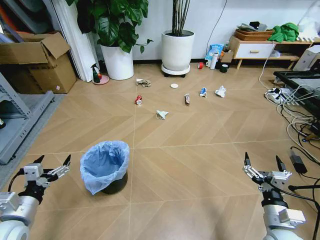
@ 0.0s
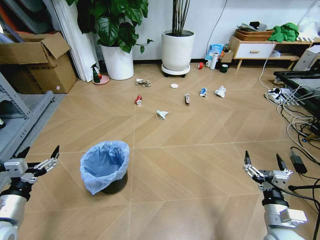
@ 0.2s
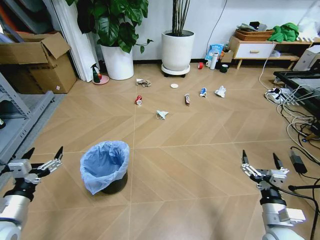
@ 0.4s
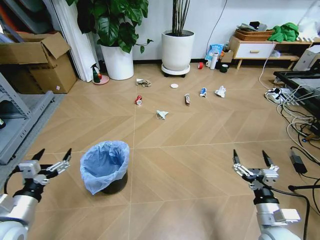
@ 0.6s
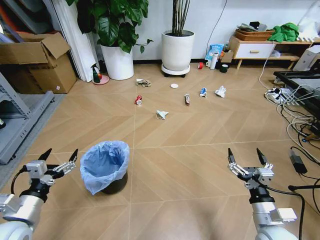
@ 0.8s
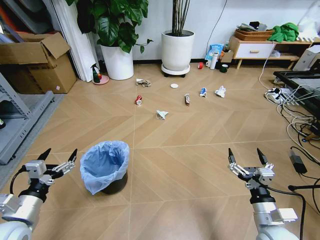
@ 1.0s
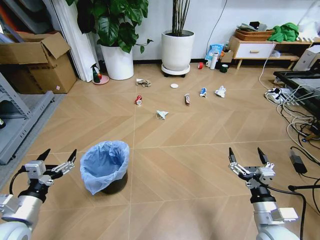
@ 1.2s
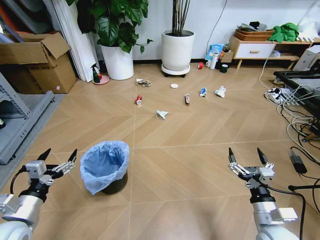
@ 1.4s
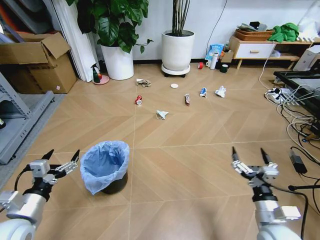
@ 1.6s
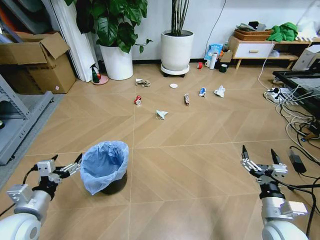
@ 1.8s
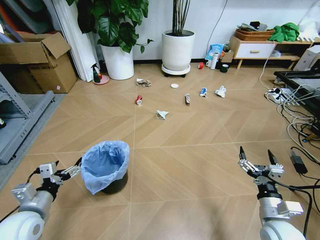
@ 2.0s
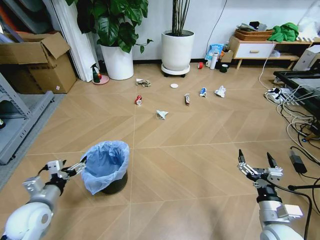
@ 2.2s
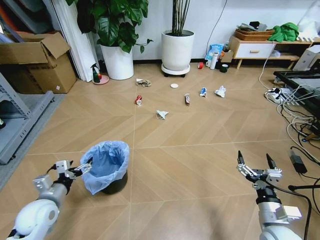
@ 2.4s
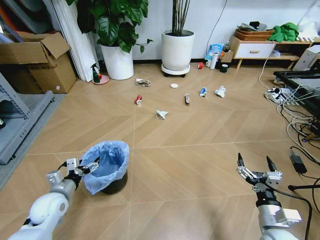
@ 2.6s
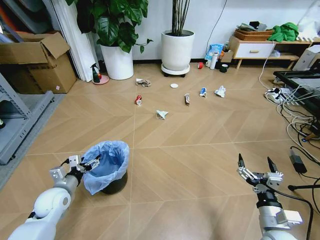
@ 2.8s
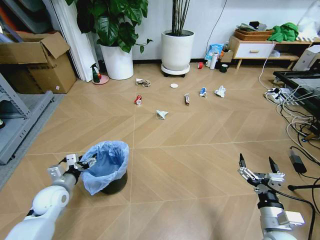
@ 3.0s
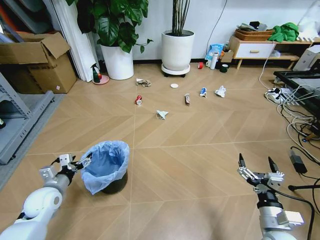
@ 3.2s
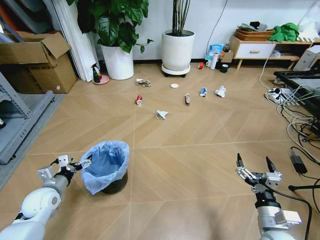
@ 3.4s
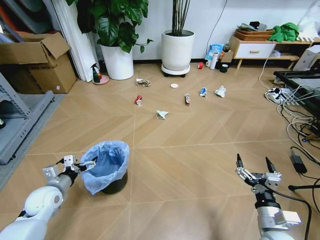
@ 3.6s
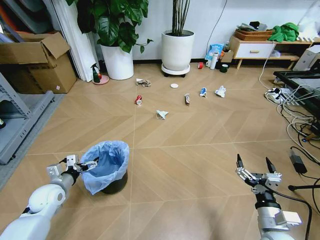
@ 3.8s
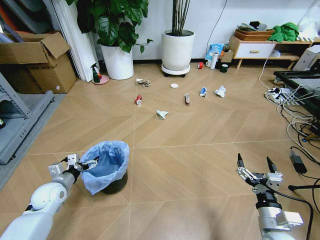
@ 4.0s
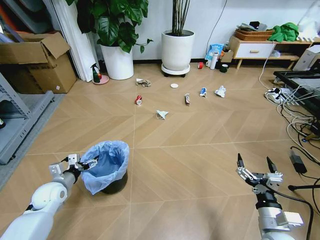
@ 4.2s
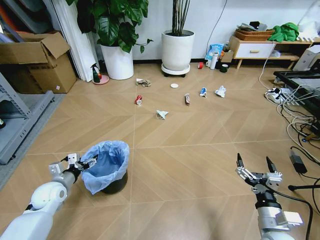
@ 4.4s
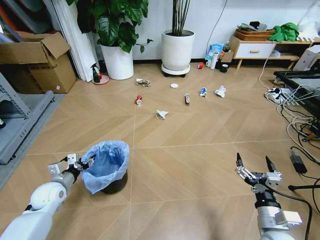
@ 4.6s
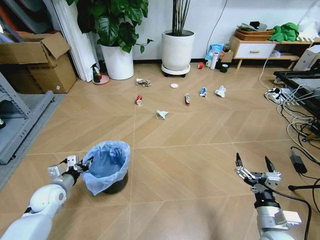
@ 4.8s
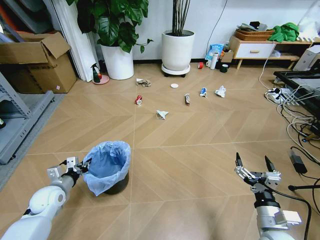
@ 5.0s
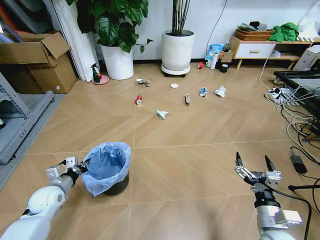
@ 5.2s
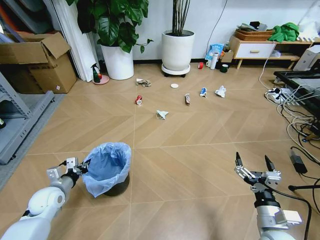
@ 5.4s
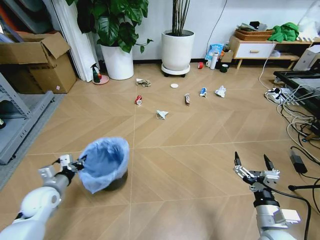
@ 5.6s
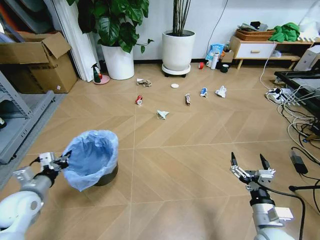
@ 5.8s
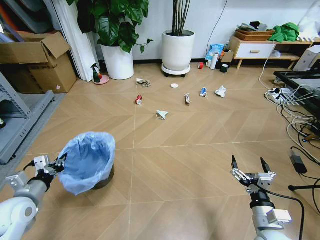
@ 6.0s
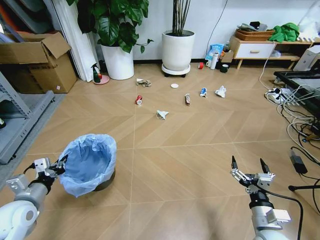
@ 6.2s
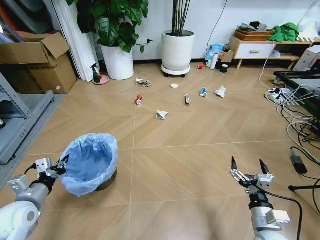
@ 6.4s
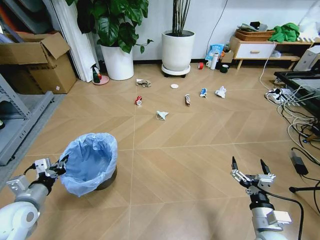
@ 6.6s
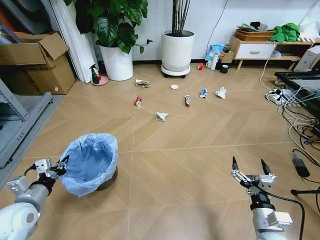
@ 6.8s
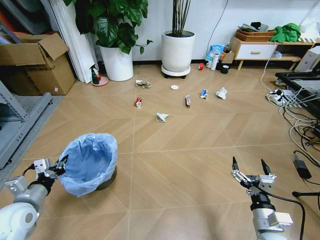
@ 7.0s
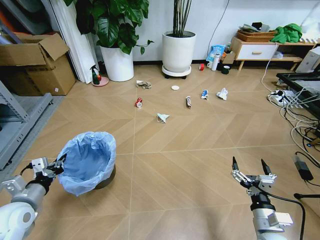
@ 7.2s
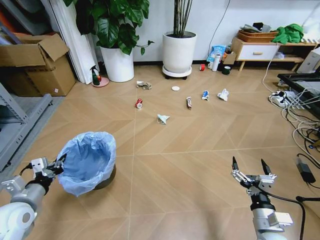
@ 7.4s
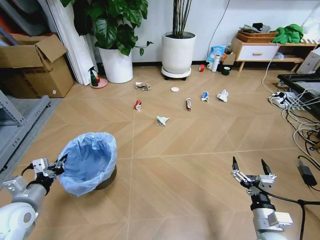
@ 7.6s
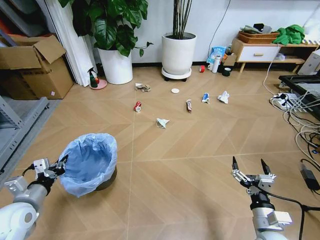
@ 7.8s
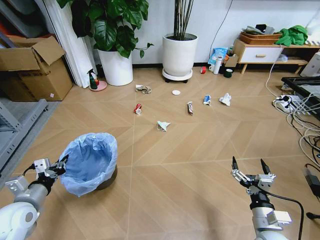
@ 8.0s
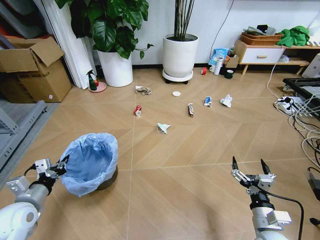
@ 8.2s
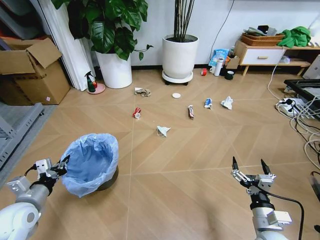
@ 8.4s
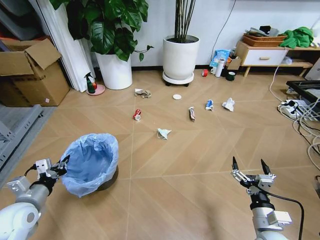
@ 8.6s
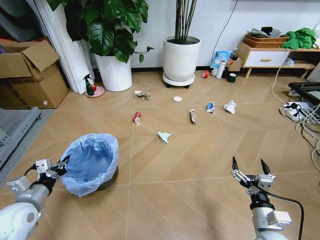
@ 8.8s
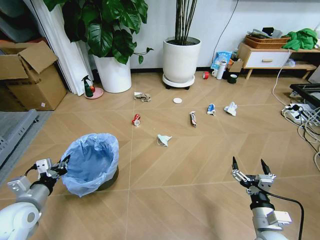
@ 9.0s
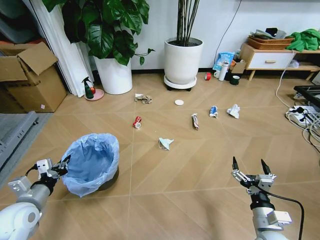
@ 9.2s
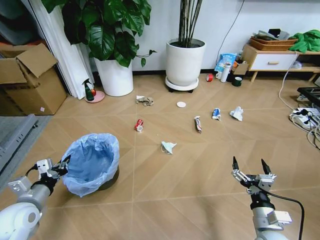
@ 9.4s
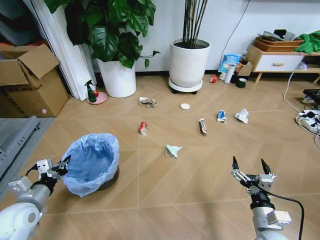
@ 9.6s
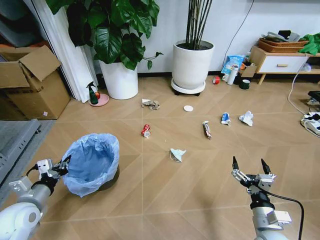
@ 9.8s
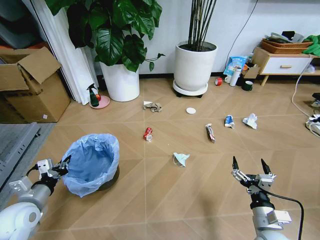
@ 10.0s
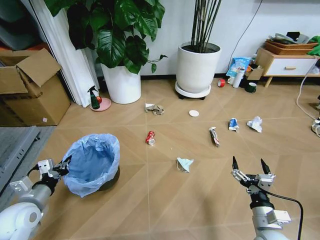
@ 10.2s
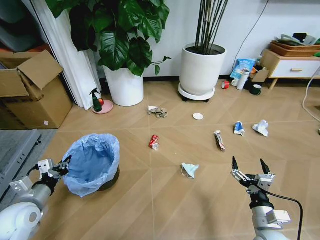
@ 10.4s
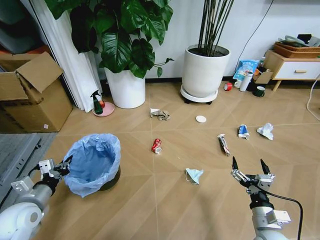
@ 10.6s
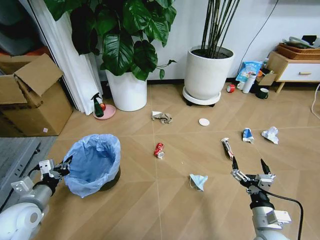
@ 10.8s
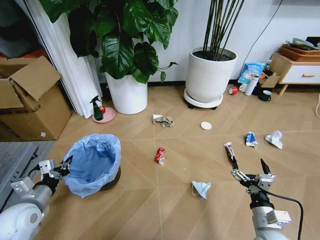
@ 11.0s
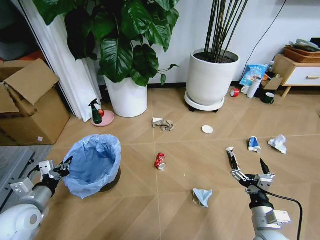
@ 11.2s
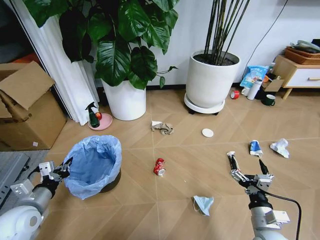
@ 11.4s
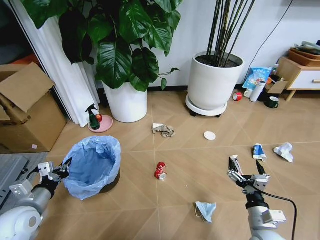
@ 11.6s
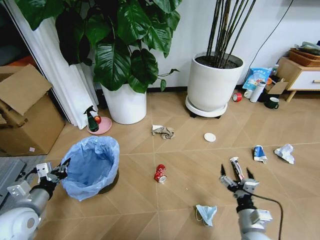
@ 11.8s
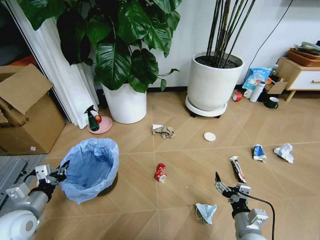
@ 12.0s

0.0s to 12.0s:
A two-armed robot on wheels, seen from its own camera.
Task of the whole recording: Pick up the trash bin and place the garbage on the floor into it.
1.6s to 3.0s: The left gripper travels forward and downward by roughly 15 cm.
3.0s to 4.4s: The grippers move only a little.
4.4s to 6.0s: The left gripper shifts approximately 10 cm backward and upward, and closes its fingers.
10.4s to 12.0s: The right gripper changes place by some 5 cm.

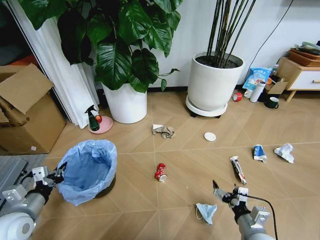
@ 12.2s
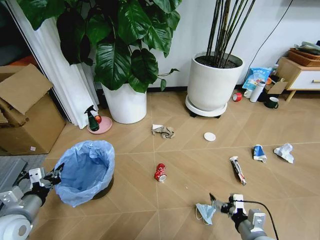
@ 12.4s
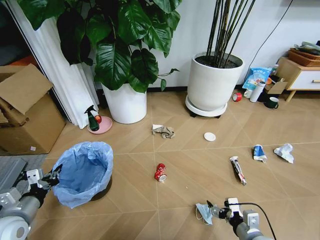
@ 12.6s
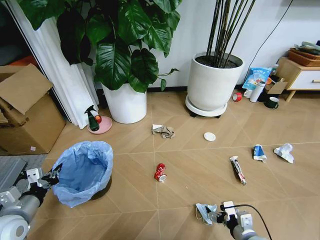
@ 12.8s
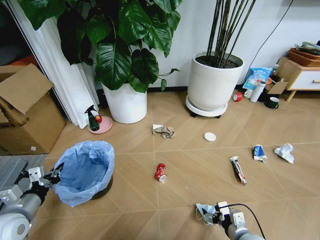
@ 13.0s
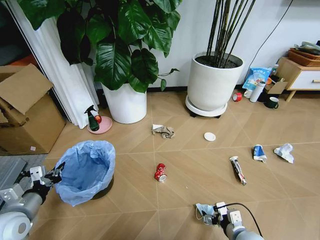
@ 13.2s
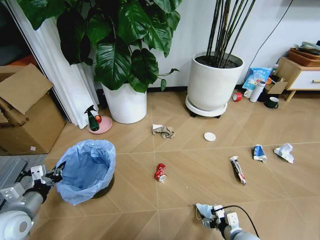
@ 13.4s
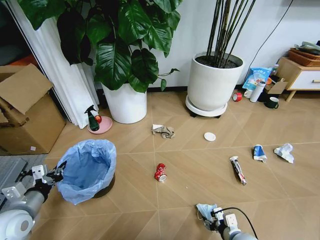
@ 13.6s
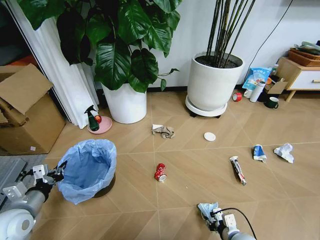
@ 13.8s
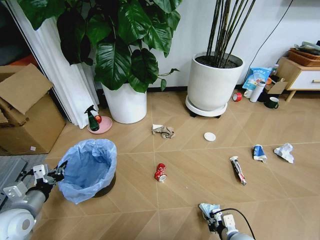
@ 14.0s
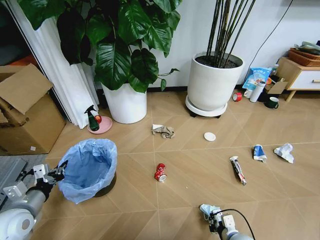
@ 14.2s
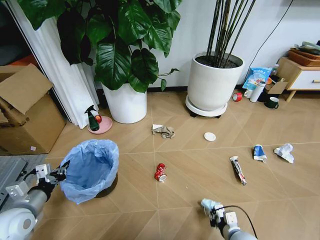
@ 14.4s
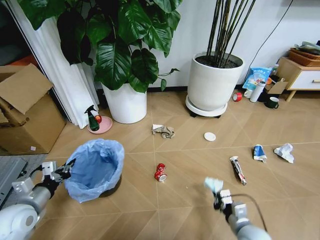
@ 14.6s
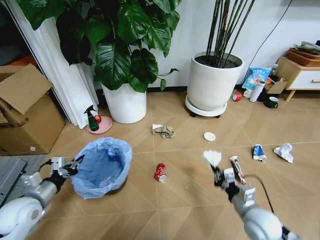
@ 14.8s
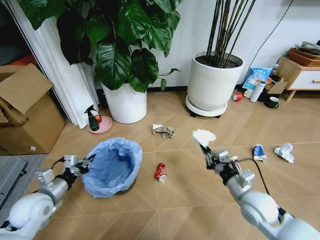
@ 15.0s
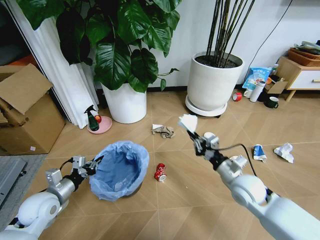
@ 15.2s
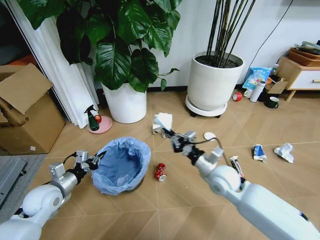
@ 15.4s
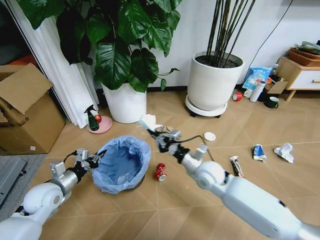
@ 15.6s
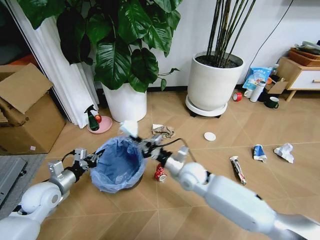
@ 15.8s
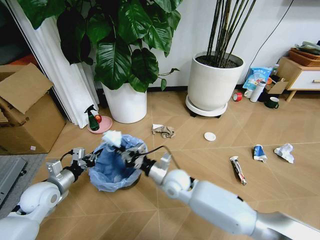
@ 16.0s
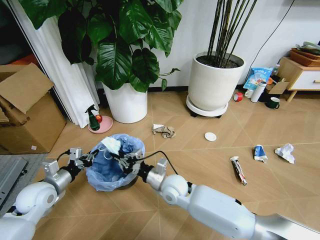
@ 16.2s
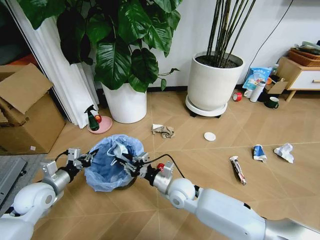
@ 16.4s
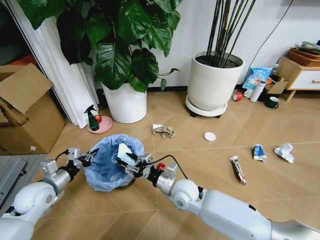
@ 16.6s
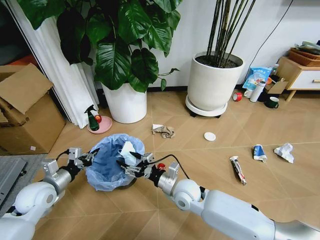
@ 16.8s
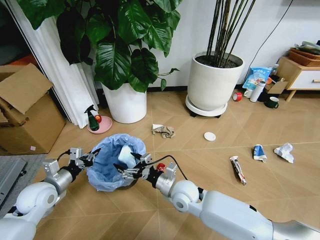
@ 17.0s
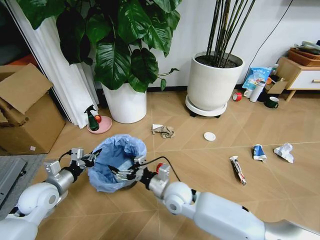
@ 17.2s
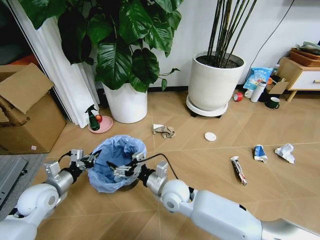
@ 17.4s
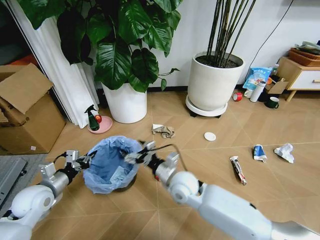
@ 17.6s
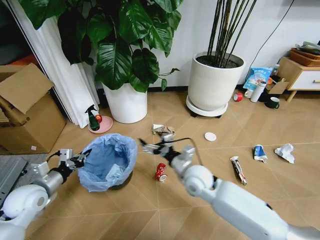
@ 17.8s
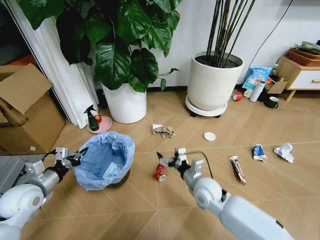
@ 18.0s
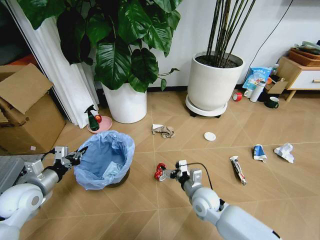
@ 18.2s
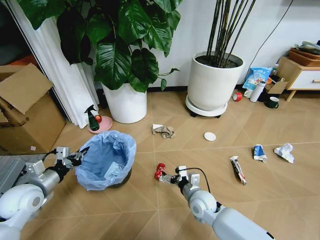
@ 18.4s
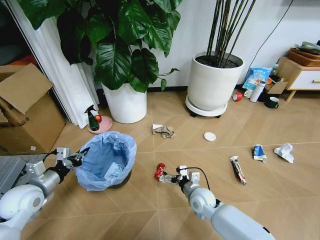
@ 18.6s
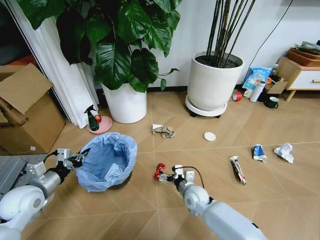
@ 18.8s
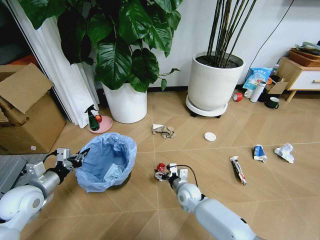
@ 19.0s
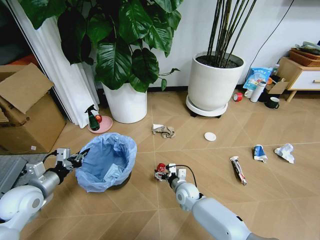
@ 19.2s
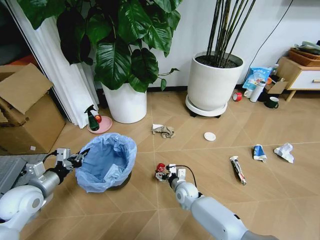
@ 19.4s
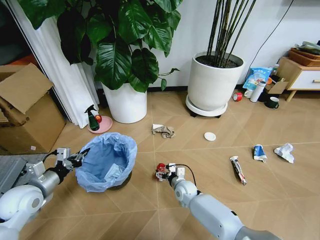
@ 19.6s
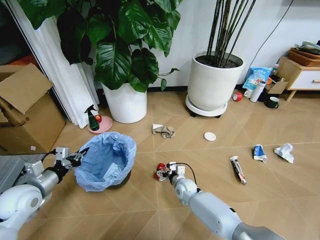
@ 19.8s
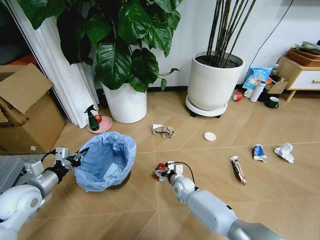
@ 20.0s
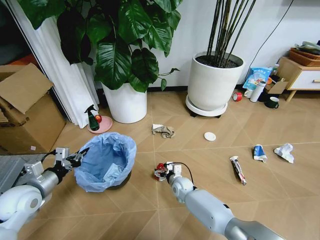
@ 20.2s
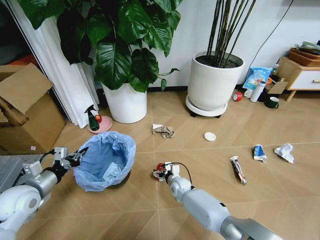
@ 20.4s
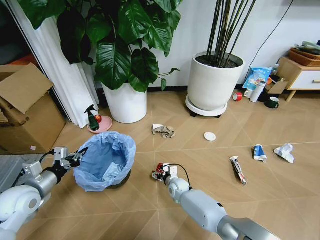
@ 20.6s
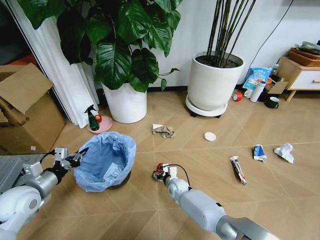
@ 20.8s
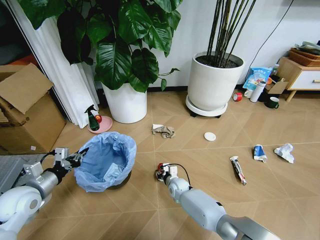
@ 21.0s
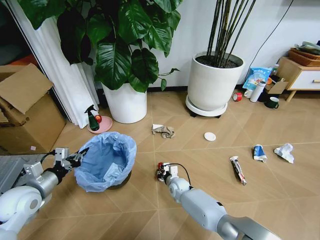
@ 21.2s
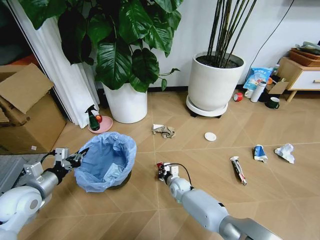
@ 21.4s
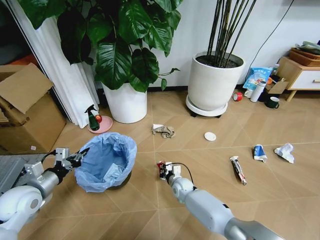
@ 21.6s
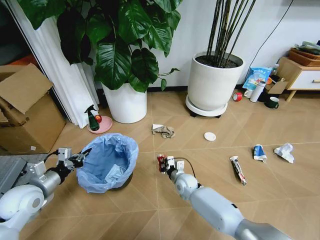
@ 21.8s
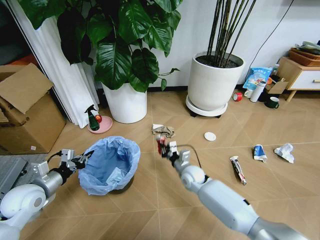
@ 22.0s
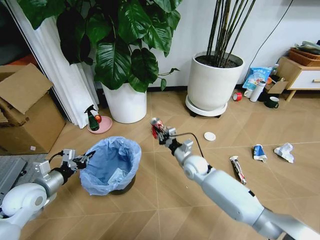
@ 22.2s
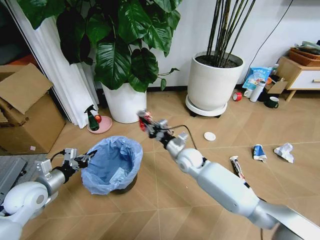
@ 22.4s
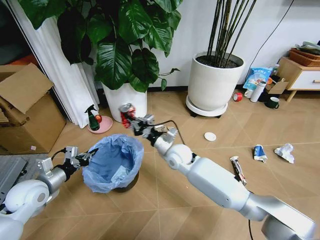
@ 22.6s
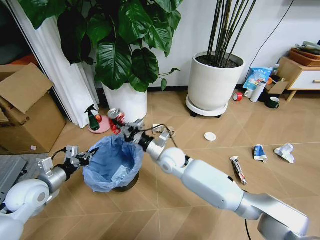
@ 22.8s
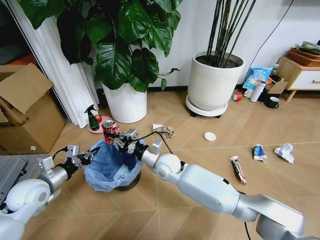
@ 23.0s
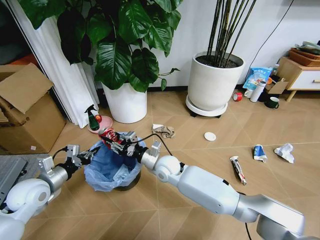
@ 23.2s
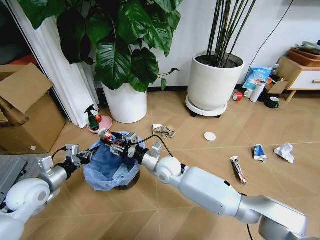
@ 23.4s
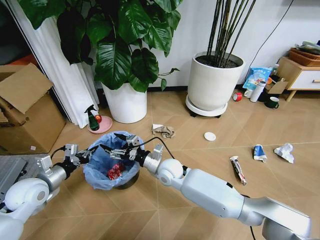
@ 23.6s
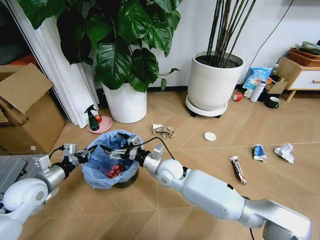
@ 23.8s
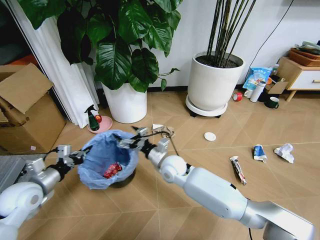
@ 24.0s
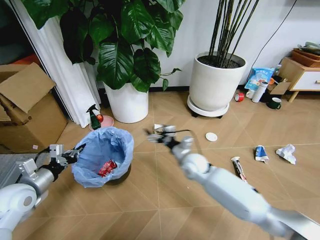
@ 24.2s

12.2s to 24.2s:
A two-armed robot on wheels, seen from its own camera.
Task of the whole recording: Pick up the trash bin and place the garbage on the floor into it.
12.2s to 13.8s: The right gripper heads downward, covering some 10 cm, and closes up.
13.8s to 15.2s: The right gripper heads upward and forward, covering some 20 cm, and closes up. Meanwhile the left gripper goes some 5 cm forward.
15.2s to 16.6s: The right gripper goes roughly 20 cm to the left, and opens.
16.6s to 18.2s: The right gripper goes roughly 10 cm to the right, and opens up.
18.2s to 19.8s: The right gripper moves downward and forward, approximately 15 cm.
19.8s to 21.2s: The right gripper closes its fingers.
21.2s to 22.6s: The right gripper shifts roughly 25 cm upward.
22.6s to 24.2s: The right gripper heads to the right, covering roughly 5 cm, and opens.
